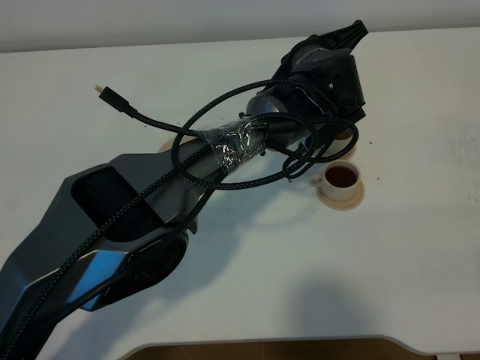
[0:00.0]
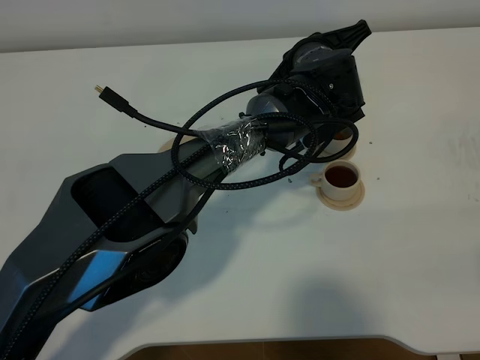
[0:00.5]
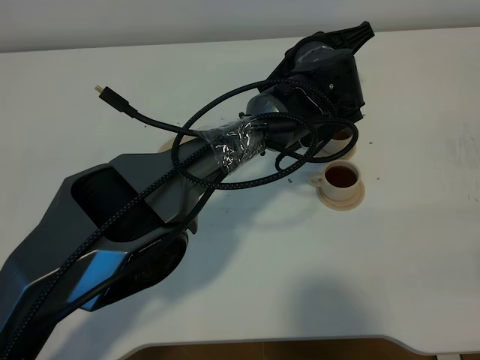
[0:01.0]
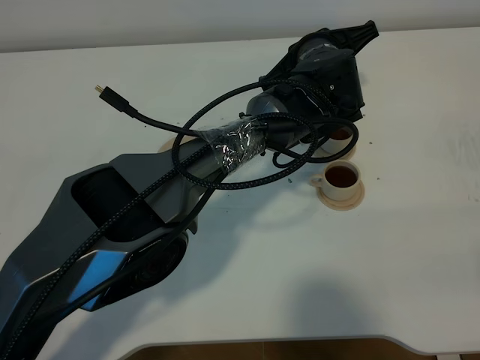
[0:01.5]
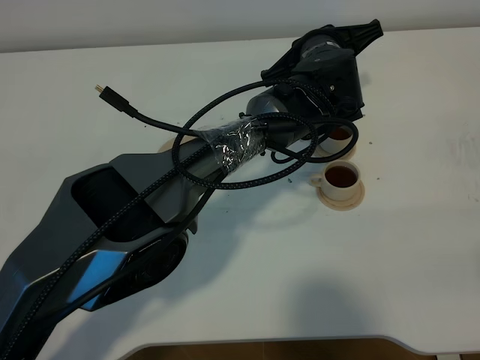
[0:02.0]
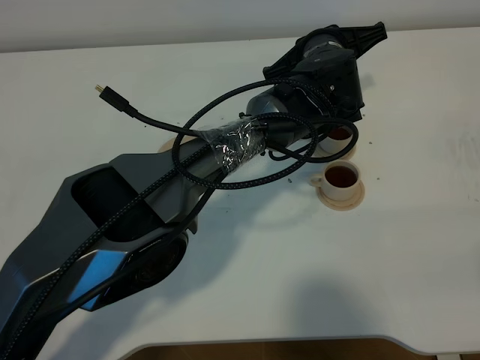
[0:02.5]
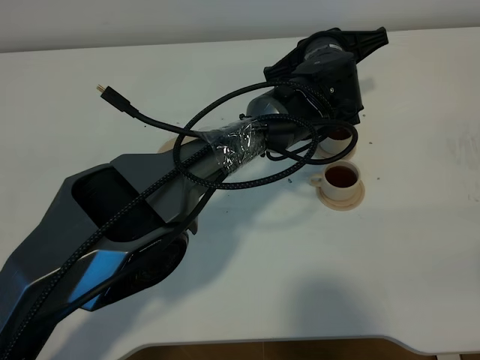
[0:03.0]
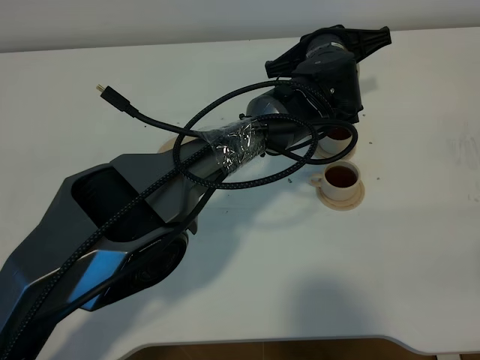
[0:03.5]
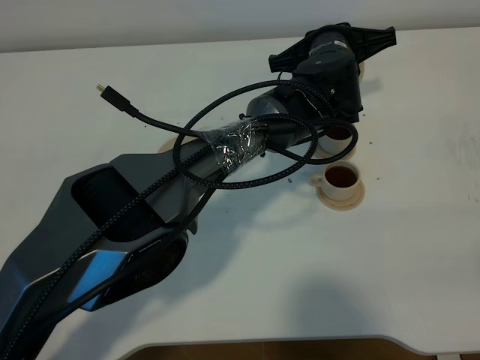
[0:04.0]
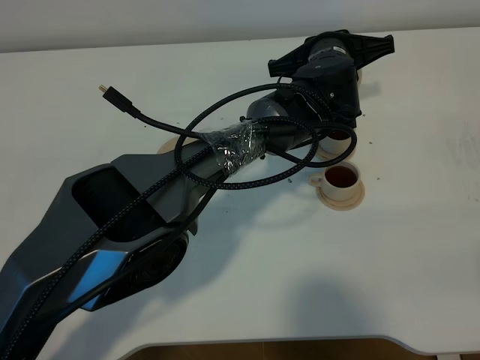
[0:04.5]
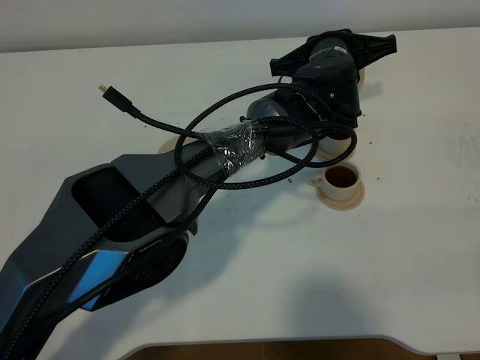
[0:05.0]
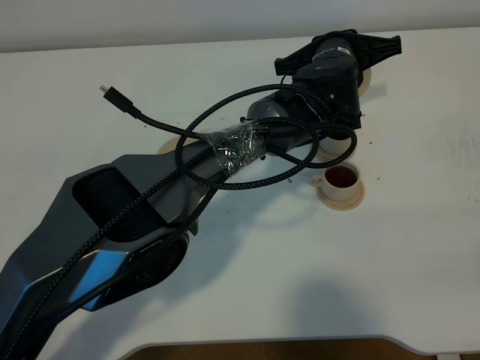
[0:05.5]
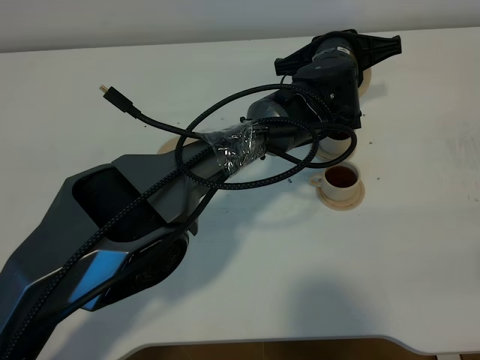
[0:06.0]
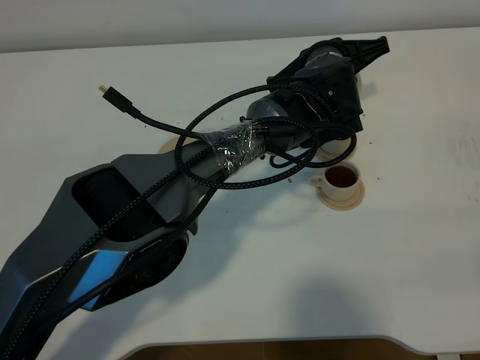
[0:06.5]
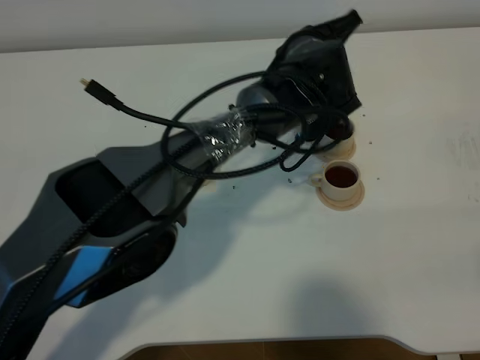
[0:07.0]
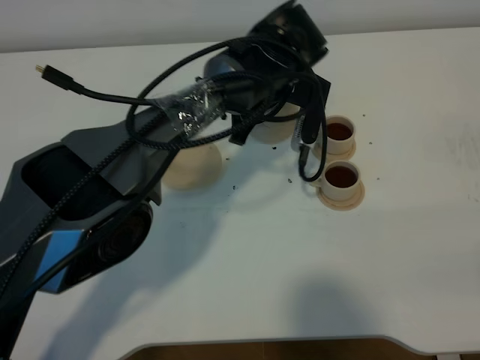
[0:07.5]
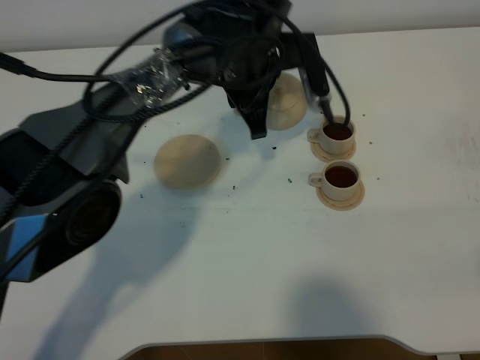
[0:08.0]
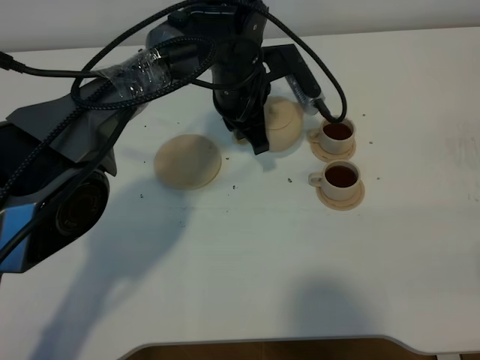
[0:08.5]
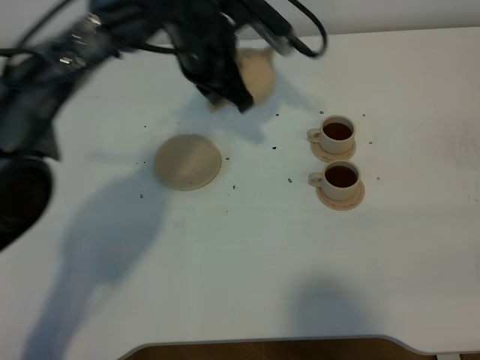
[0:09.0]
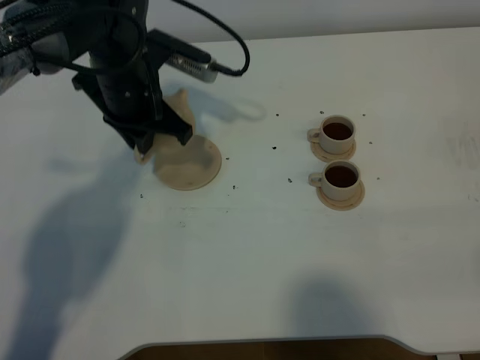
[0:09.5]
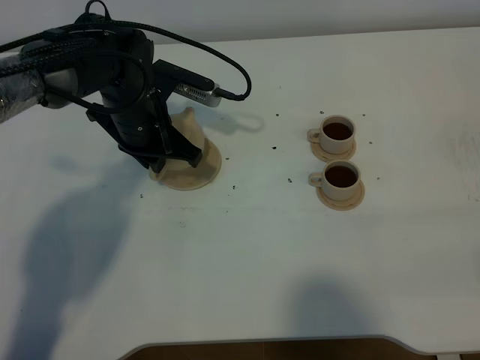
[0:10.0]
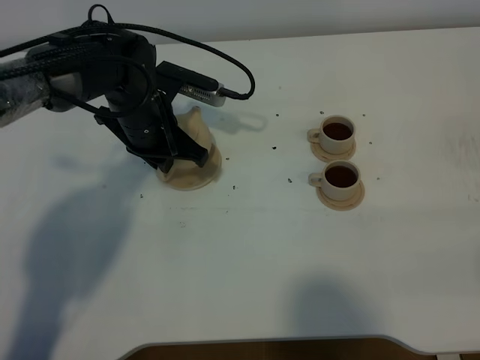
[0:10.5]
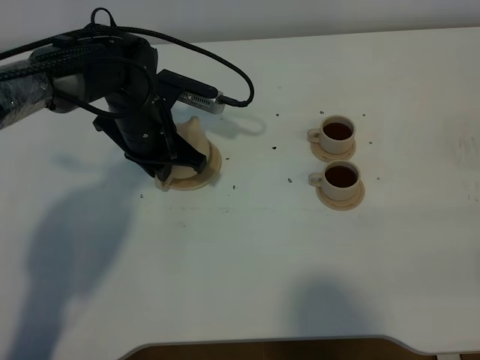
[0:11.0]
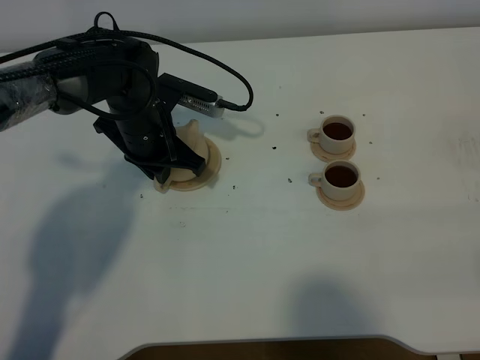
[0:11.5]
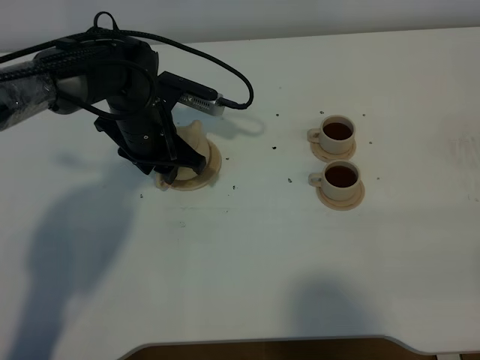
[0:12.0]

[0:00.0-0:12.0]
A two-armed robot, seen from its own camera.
Task of the whole recording: grasp the brown teapot and pour the tea into the two brown teacups one by one, put the brown teapot back in its original place.
Step, 0:00.0 to 0:07.0: Pour tea into the teacup with the left gripper.
0:00.0 to 0:02.0: The grippers stay close to where they were, moving slightly.
0:02.0 to 0:04.0: The grippers move only a little.
0:04.0 to 0:06.0: Neither gripper changes place.
0:06.0 to 0:08.0: The left gripper moves to the left, about 10 cm.
0:08.0 to 0:10.0: The left gripper heads to the left, covering about 15 cm.
0:10.0 to 0:12.0: The left gripper opens.

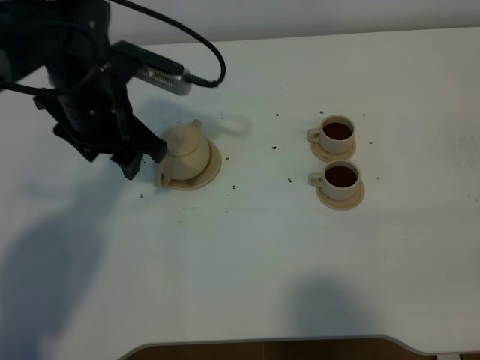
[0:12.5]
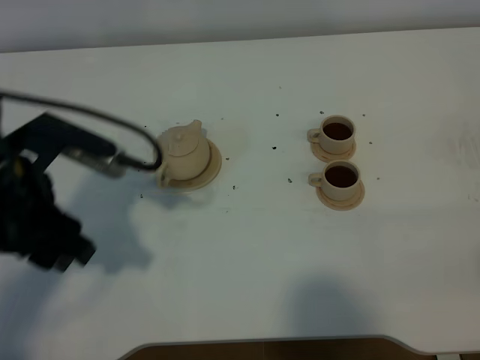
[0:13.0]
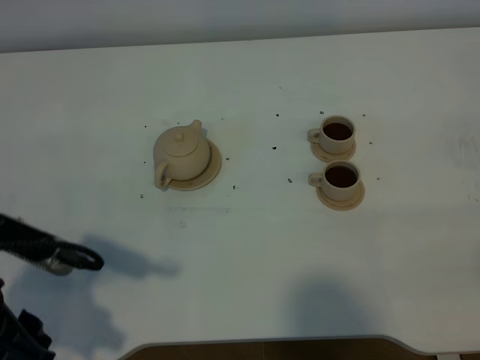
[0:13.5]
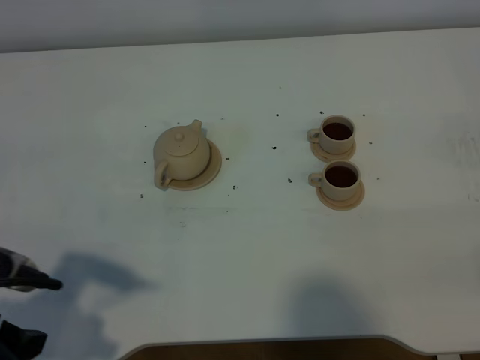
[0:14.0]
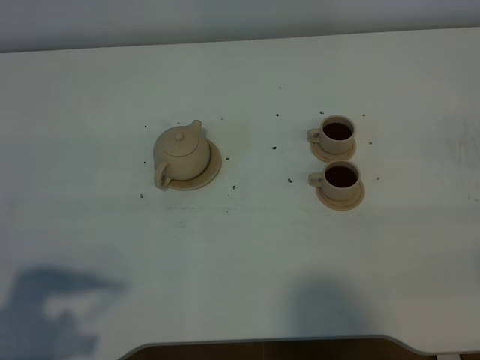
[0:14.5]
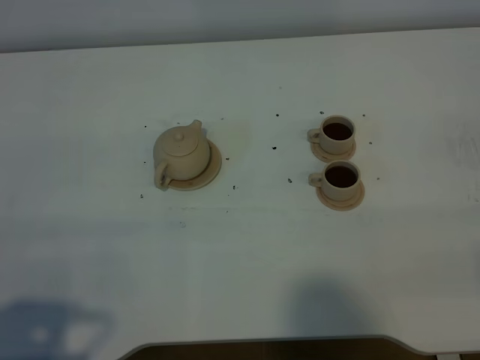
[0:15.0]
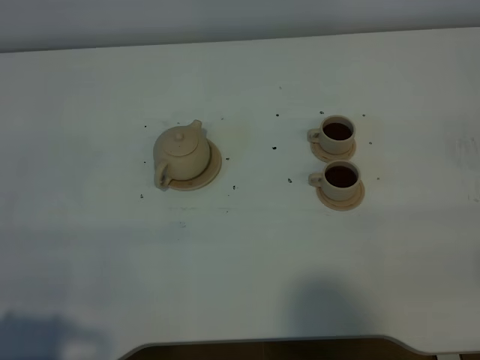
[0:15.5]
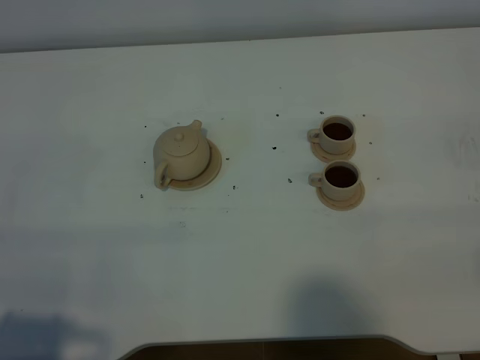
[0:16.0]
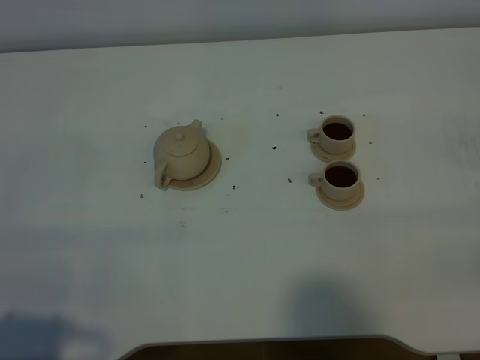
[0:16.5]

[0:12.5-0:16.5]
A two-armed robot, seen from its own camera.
Task of the whole recording: grasp the brown teapot and pour the tea into the two brown teacups one by one, put the brown teapot back in its original place.
0:12.5 to 0:14.5: The left gripper travels backward and to the left by some 30 cm.
0:14.5 to 0:16.5: The left gripper moves backward, approximately 5 cm.

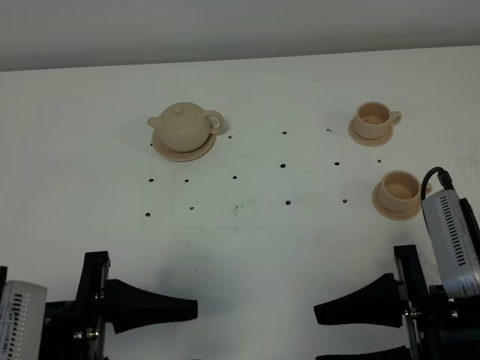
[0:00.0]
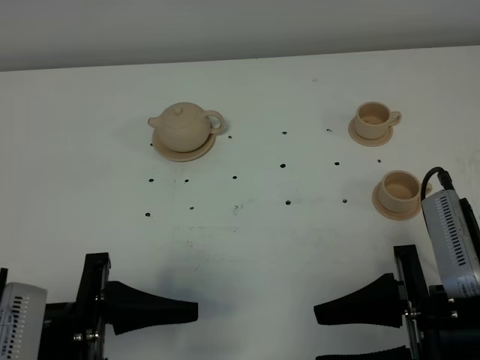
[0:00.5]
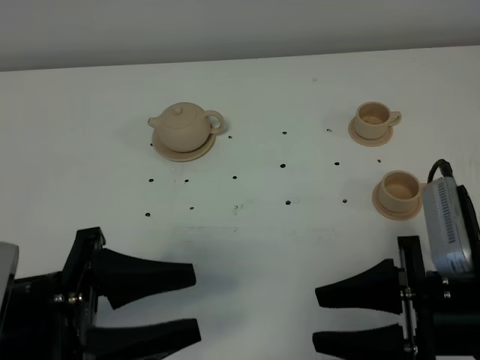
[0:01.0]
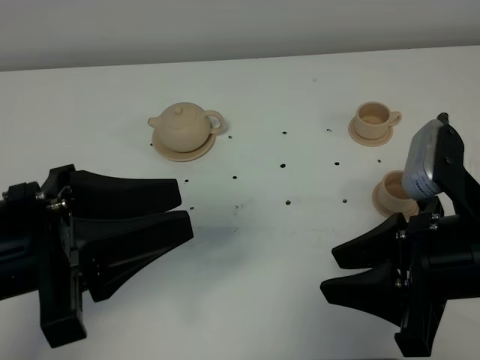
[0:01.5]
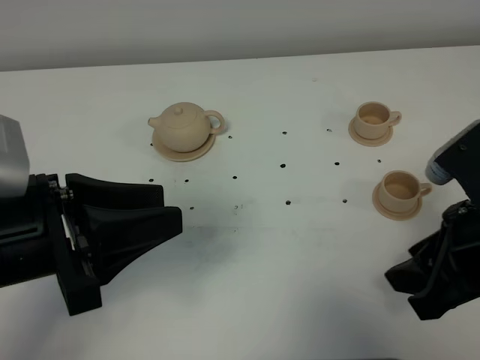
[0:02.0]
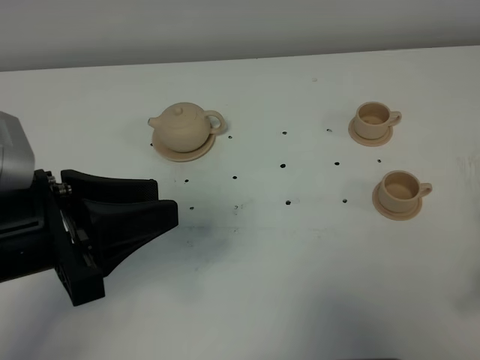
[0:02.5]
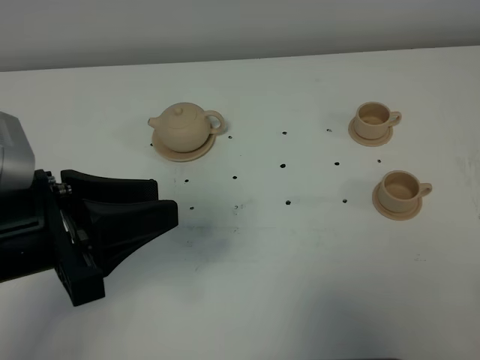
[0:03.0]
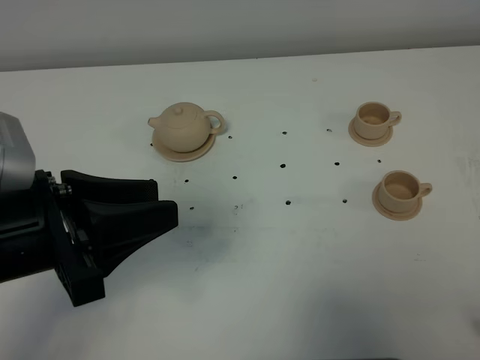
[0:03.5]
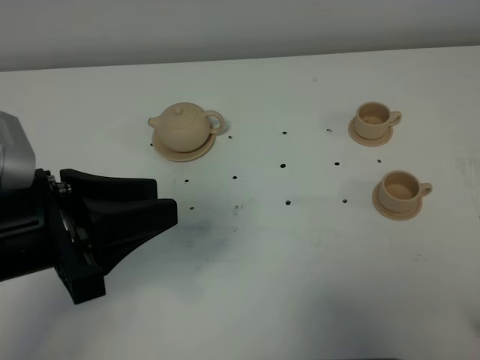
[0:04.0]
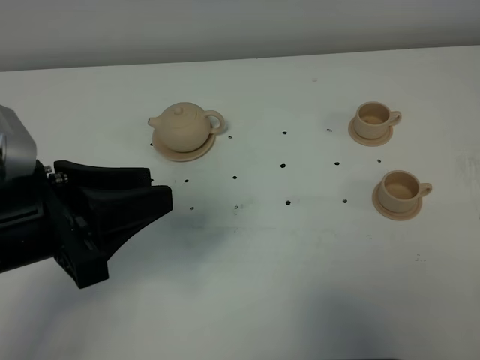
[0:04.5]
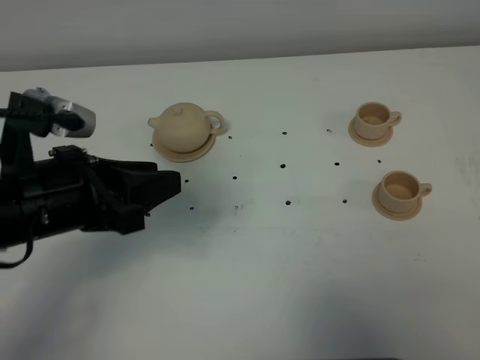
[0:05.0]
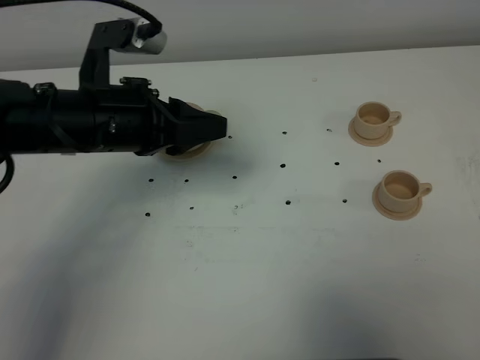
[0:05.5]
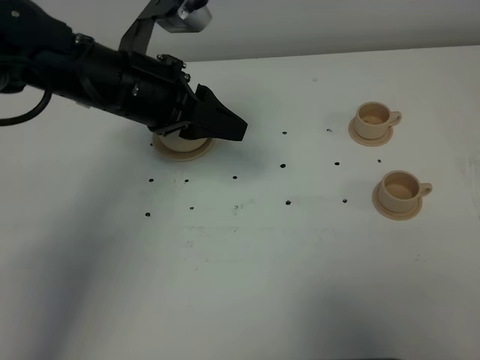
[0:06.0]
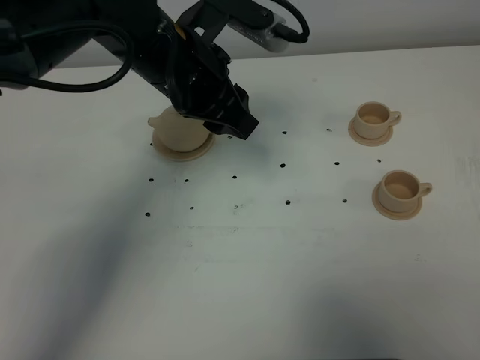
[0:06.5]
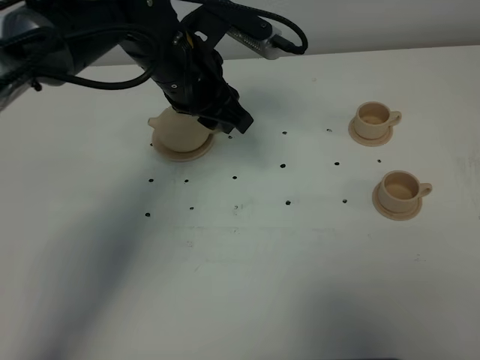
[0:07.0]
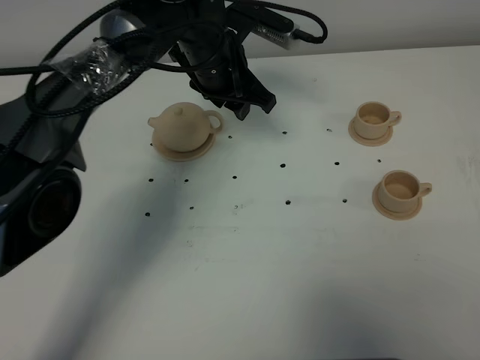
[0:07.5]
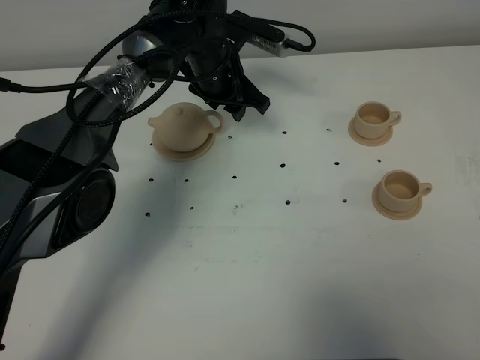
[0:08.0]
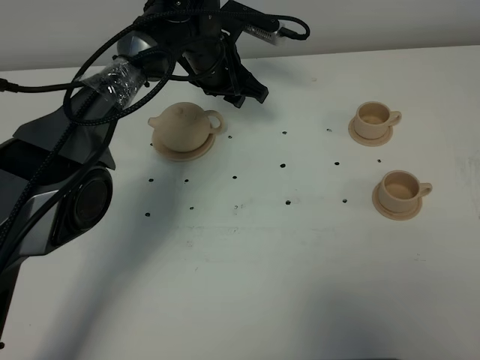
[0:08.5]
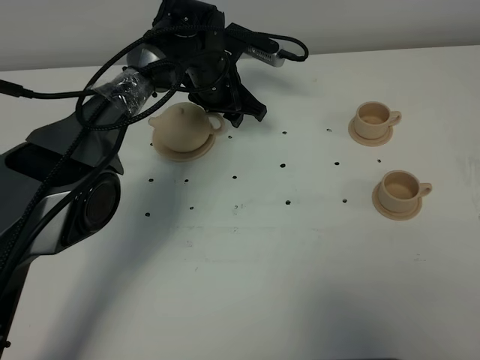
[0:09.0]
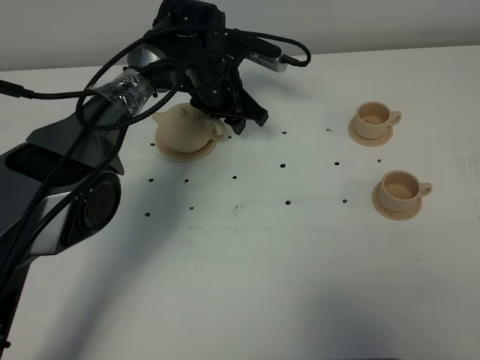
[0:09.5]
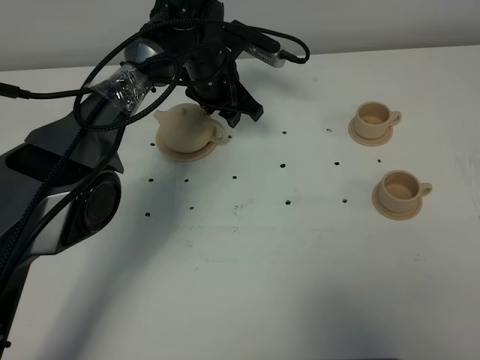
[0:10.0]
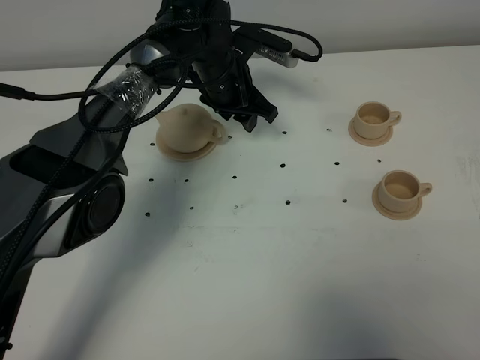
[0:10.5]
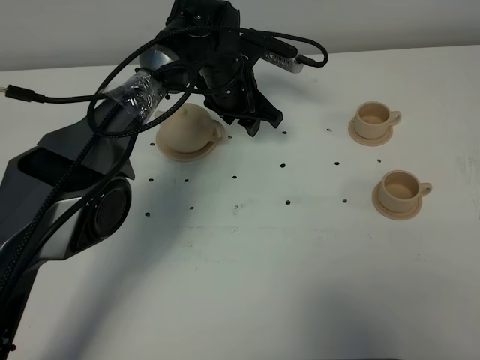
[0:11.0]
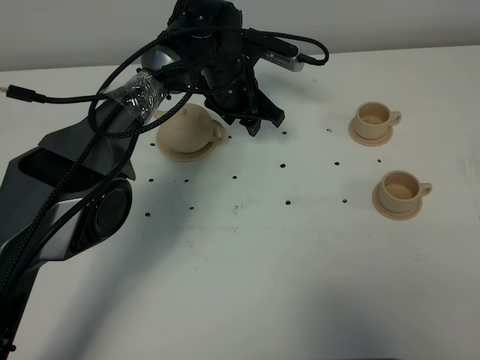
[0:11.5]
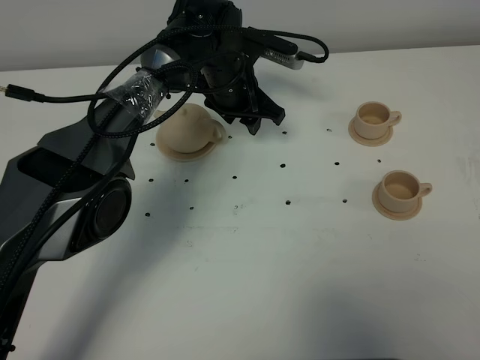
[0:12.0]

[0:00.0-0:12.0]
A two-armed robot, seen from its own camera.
Task of the whole recording: grasp the brown teapot and pour the tea into the two brown teacups one by one, put the brown teapot back in its original place.
0:00.0 to 0:02.0: The right gripper heads forward, covering roughly 5 cm, while the left gripper moves upward and forward, approximately 10 cm.
0:02.0 to 0:04.0: The right gripper heads backward and to the right, covering about 15 cm.
0:04.0 to 0:06.0: The left gripper moves forward, some 20 cm.
0:06.0 to 0:08.0: The left gripper shifts approximately 20 cm forward, downward and to the right.
0:08.0 to 0:12.0: The grippers move only a little.
